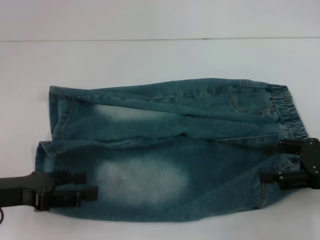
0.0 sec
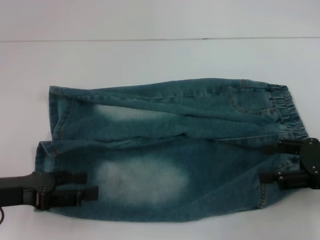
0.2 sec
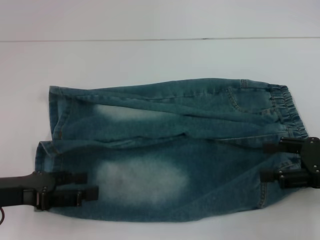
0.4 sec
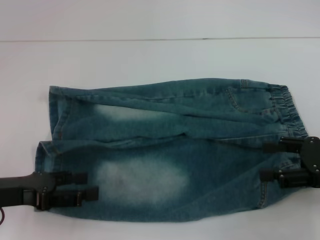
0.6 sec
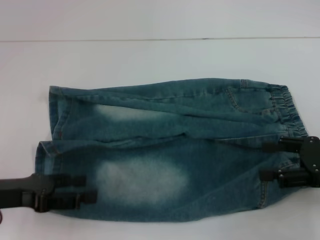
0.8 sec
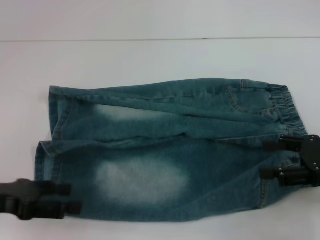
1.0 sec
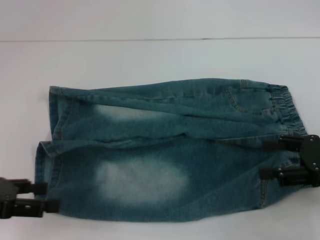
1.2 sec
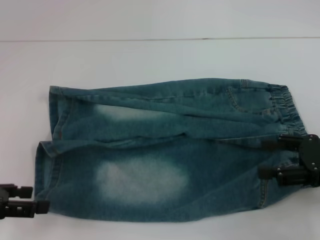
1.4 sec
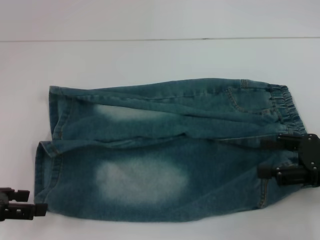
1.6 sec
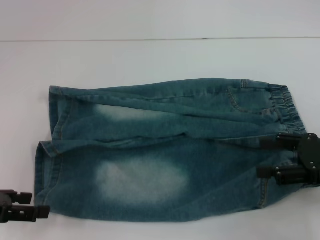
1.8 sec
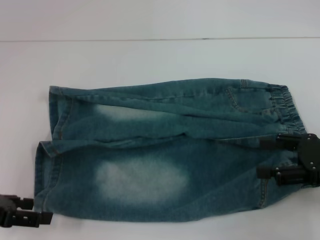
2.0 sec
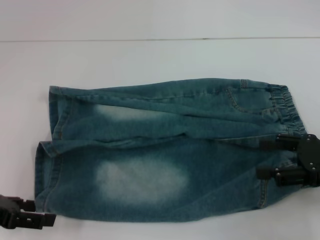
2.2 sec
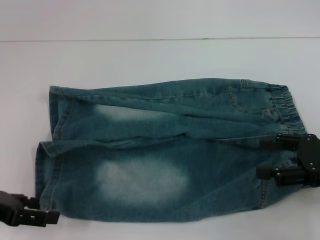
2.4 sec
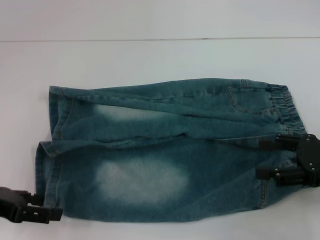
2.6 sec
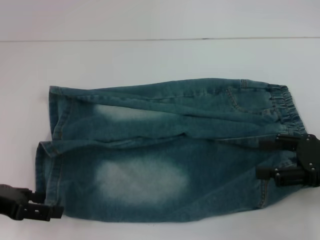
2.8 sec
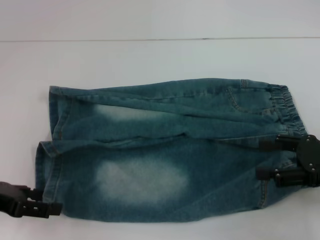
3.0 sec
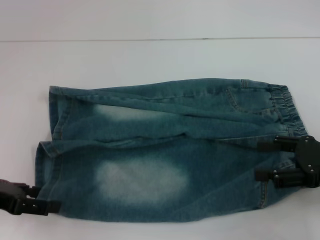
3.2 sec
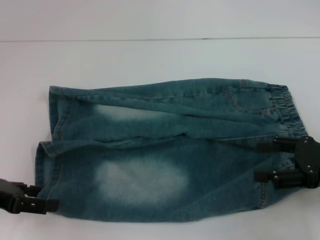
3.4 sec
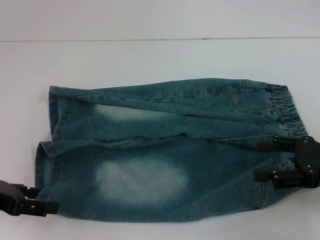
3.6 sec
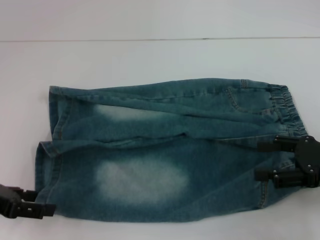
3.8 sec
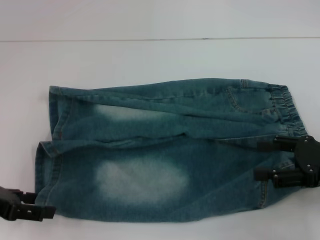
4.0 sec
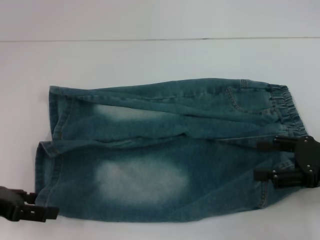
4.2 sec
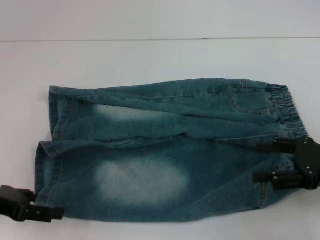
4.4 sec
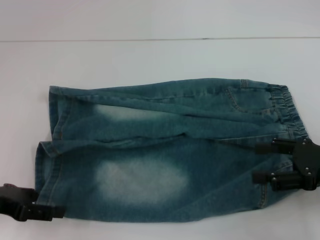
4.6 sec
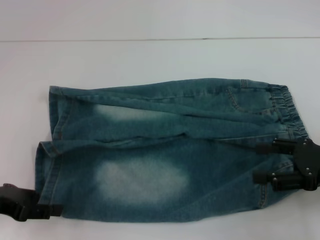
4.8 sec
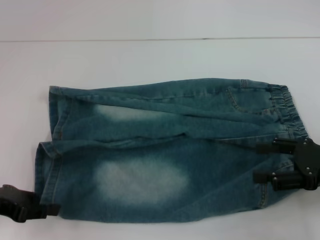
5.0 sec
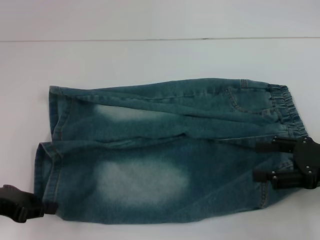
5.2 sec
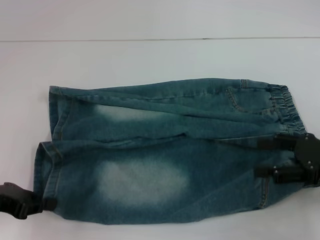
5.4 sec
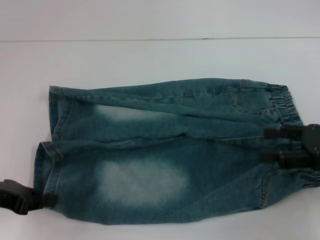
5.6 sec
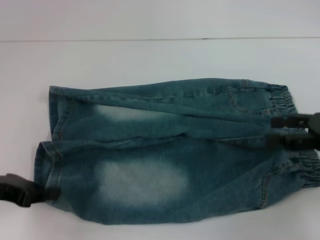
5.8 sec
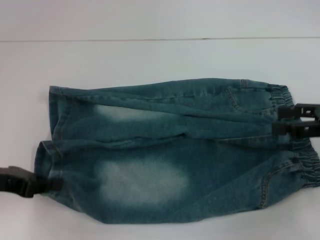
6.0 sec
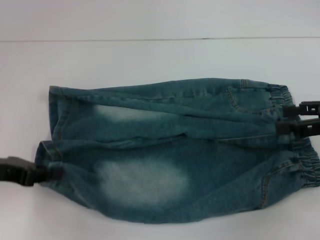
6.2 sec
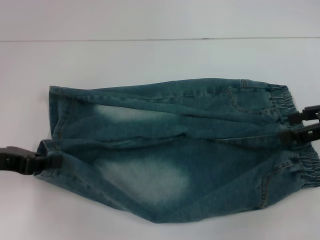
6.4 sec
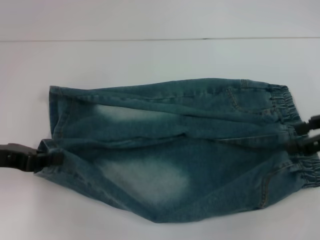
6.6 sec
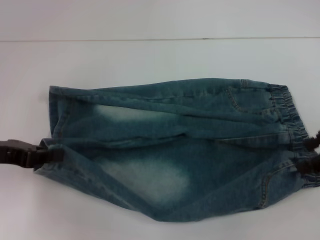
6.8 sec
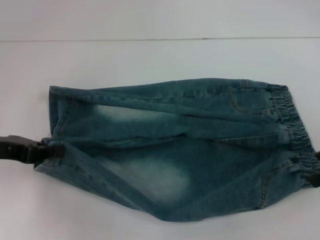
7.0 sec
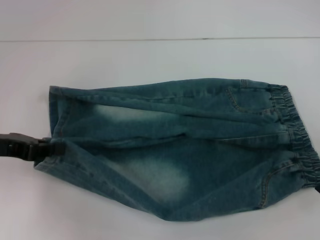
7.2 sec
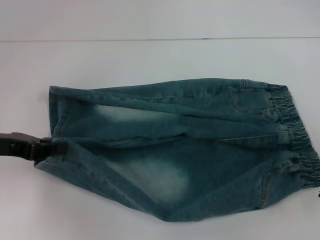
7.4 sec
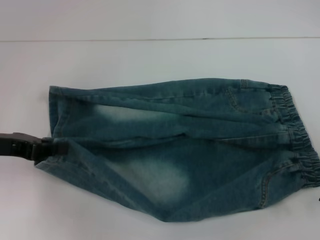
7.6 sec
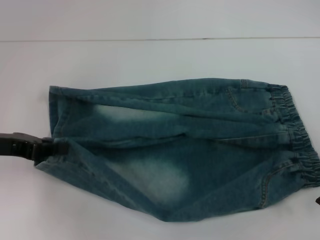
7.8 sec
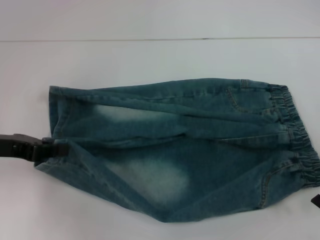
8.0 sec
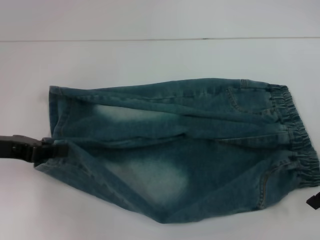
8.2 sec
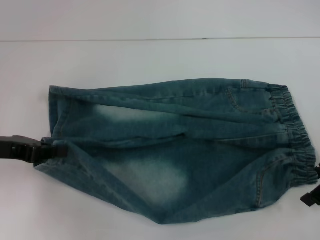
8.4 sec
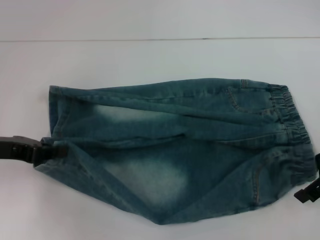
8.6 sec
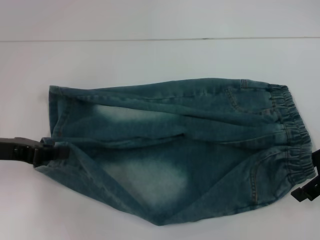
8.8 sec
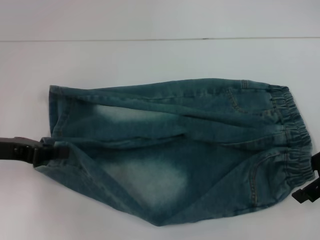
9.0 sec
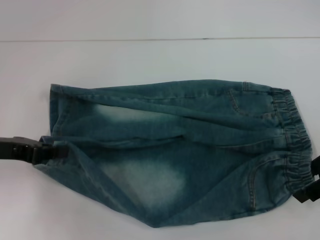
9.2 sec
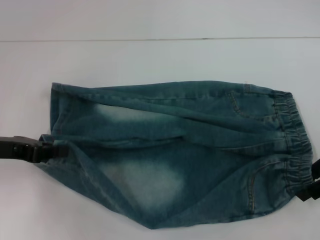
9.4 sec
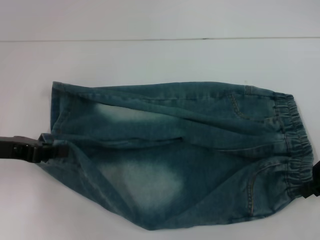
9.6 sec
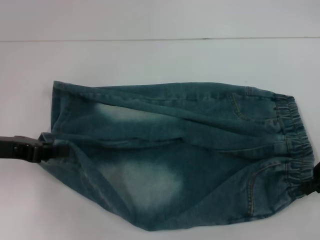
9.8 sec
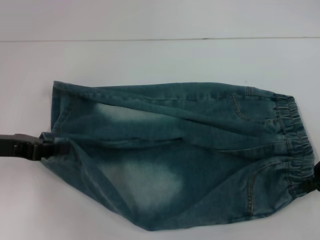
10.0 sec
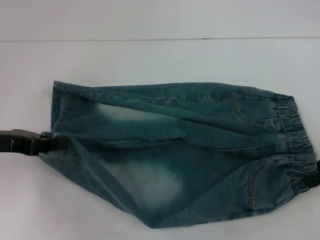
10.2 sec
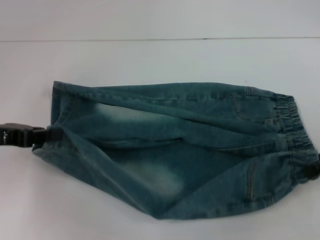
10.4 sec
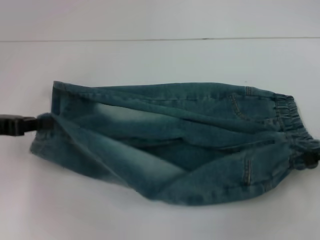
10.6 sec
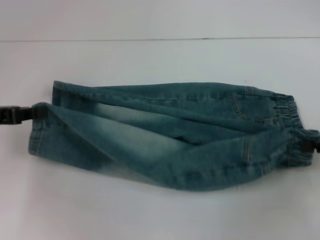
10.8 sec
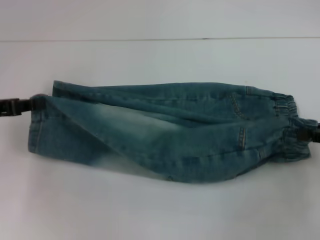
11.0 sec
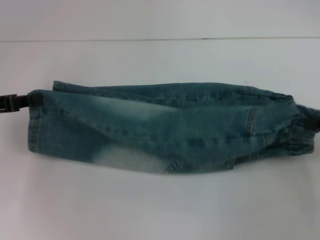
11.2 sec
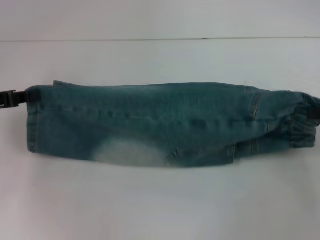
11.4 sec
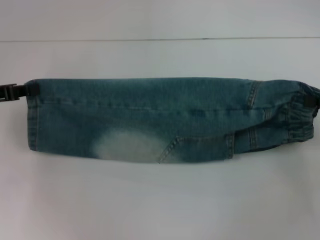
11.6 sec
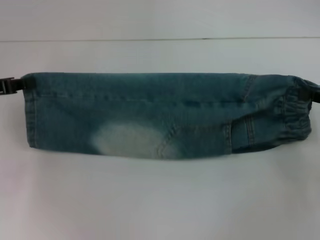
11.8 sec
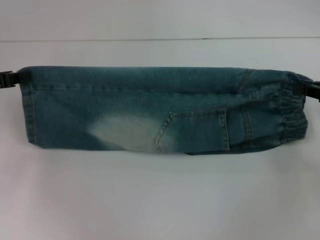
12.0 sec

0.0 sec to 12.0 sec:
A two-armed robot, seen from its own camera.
Step, 0.0 sec to 5.0 sec: Grab the lower left pant leg with your left hand.
Step, 5.4 sec to 9.8 sec: Hold the lower right waistband with your right hand.
0.0 sec to 1.6 sec: The left gripper changes place by some 5 cm.
1.6 sec to 3.0 sec: The grippers stay close to where they were, moving slightly.
3.0 sec to 4.4 sec: Both grippers stay put.
4.4 sec to 6.0 sec: The right gripper ends up some 5 cm from where it was. Meanwhile the left gripper closes.
7.6 sec to 9.0 sec: There are only small adjustments of the grippers.
9.0 sec to 10.4 sec: The right gripper closes up.
10.4 sec to 12.0 sec: The left gripper goes some 5 cm forward.

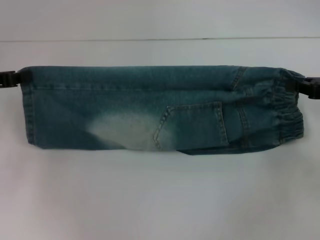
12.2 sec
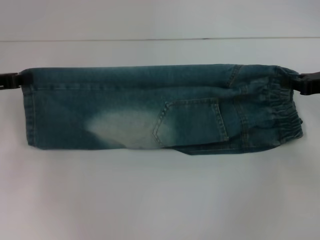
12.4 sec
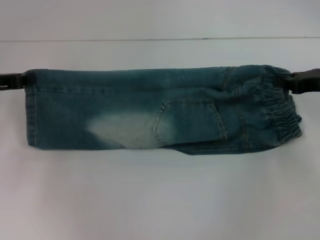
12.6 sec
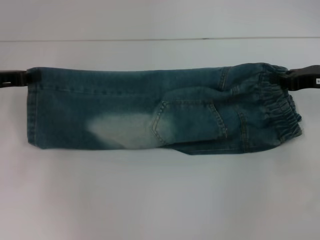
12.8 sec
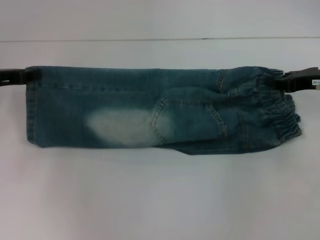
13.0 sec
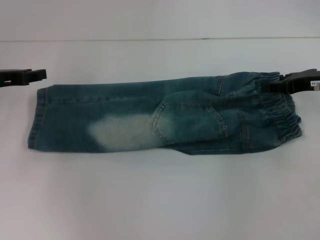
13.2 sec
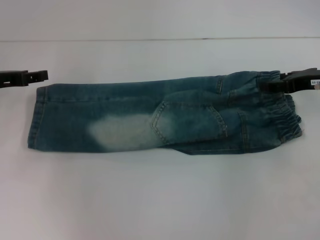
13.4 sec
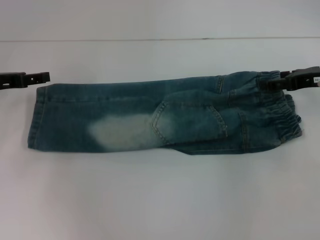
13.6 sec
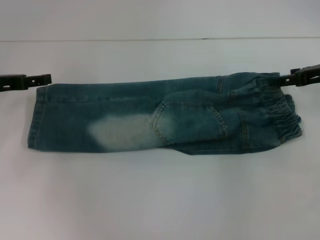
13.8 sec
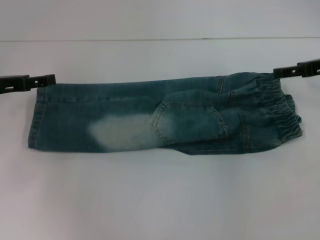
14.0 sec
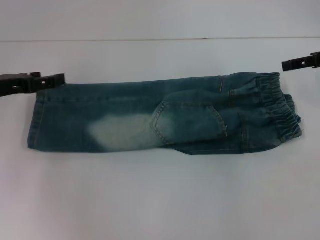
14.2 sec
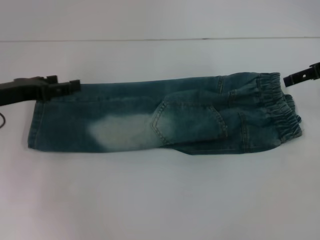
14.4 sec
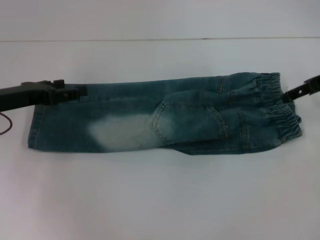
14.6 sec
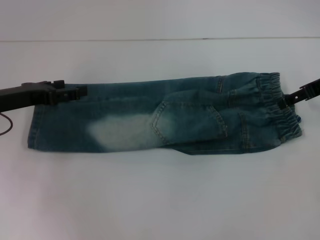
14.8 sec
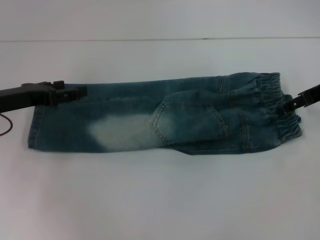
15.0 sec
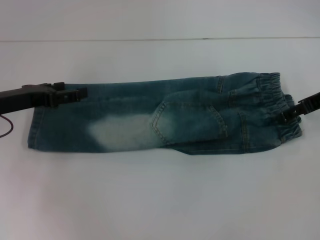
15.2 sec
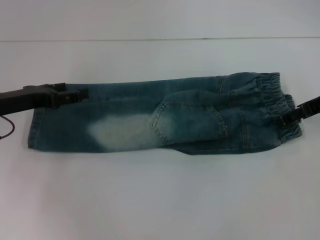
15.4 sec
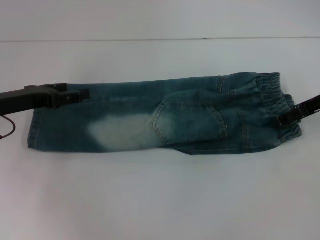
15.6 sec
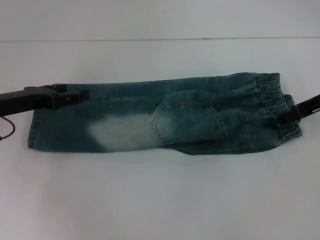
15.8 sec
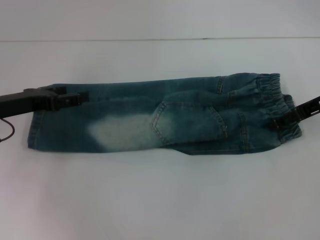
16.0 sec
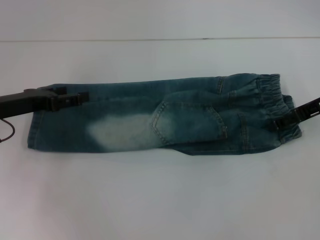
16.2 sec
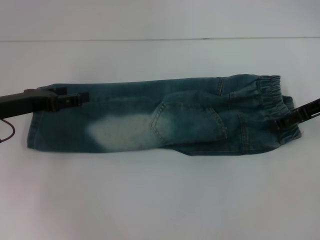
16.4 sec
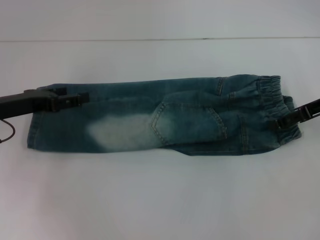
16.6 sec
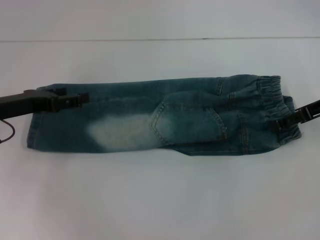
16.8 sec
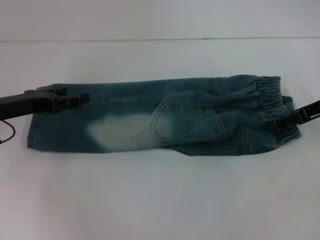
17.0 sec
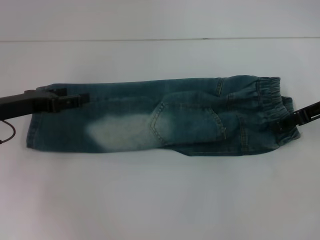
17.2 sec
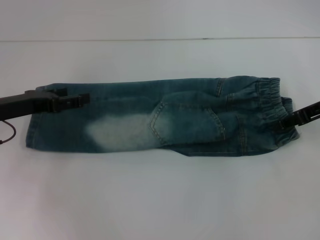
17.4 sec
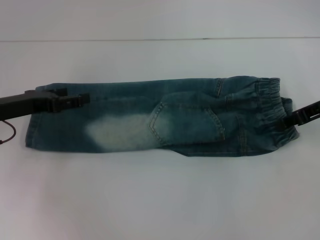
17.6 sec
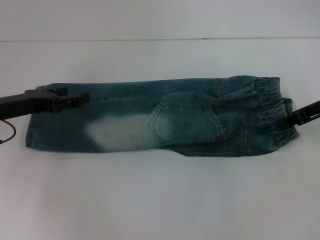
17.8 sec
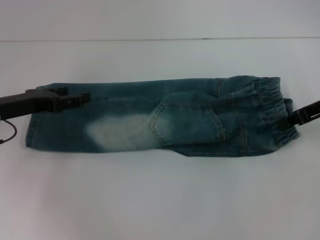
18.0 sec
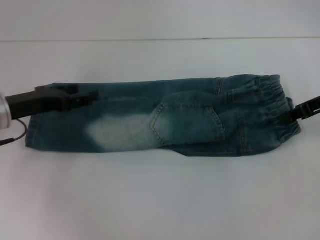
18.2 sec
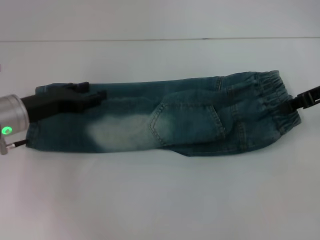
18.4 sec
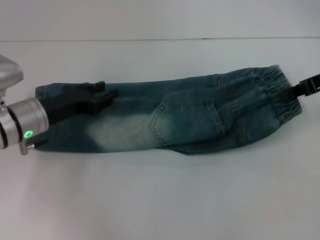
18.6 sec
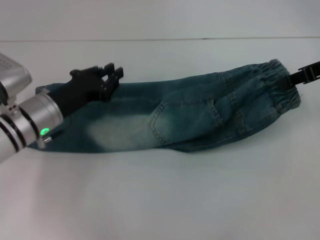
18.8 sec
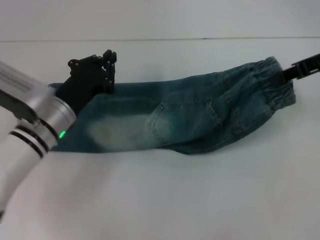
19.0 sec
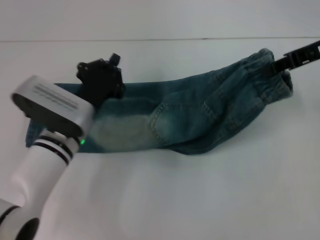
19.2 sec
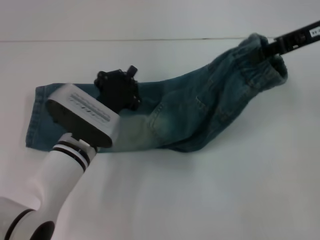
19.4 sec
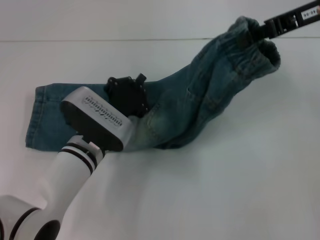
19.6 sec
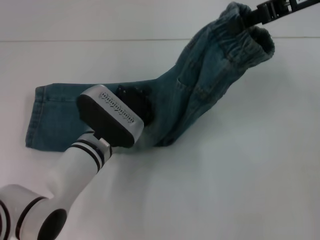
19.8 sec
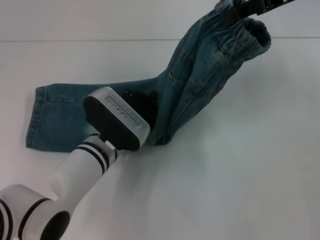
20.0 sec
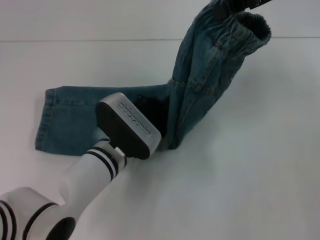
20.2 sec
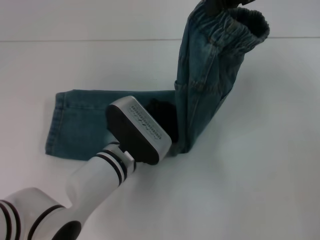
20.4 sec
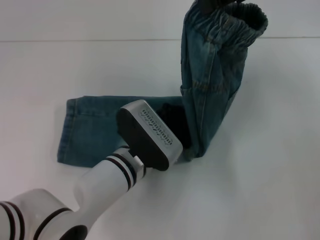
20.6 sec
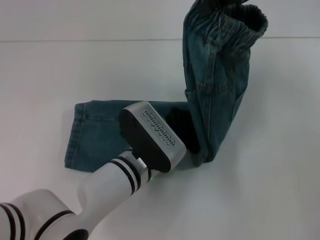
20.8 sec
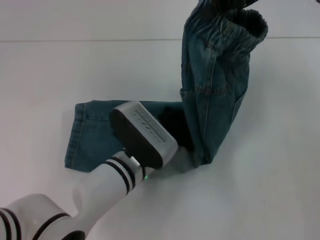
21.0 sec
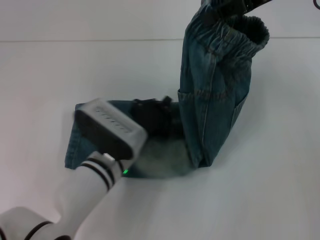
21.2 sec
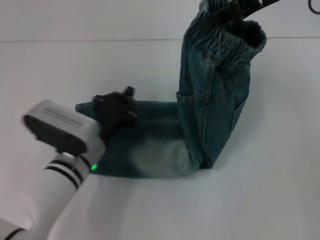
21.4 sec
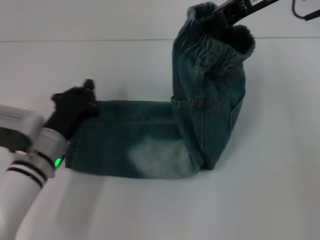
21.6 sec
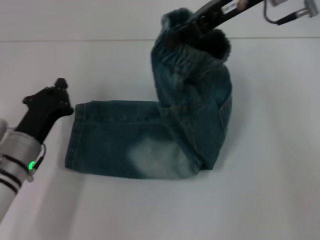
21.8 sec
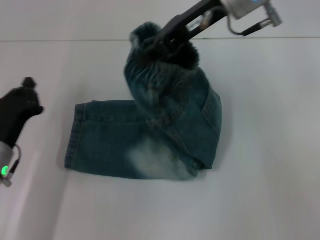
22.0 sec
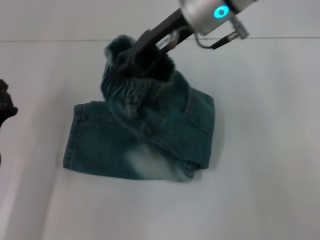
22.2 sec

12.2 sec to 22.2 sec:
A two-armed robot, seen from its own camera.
Step, 13.2 sec to 13.4 sec: Fold upward with your right hand.
Step, 13.8 sec to 17.8 sec: Grab the waistband with your right hand.
Step, 18.0 sec to 21.0 sec: Press the middle of the pants with your left hand.
12.2 sec to 13.6 sec: The right gripper changes place by roughly 5 cm, and opens. Meanwhile the left gripper opens.
15.0 sec to 16.4 sec: The grippers move only a little.
16.4 sec to 18.0 sec: The right gripper closes up.
18.0 sec to 19.4 sec: The right gripper shifts approximately 10 cm upward, while the left gripper heads to the right and downward, covering some 20 cm, and closes up.
19.4 sec to 20.8 sec: The left gripper travels to the right by some 10 cm; the right gripper shifts approximately 10 cm to the left and upward.
20.8 sec to 22.2 sec: The left gripper shifts roughly 25 cm to the left. The right gripper shifts approximately 15 cm to the left.
